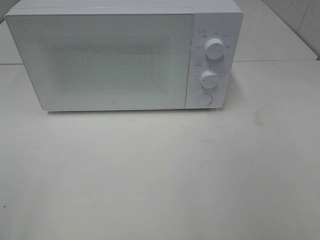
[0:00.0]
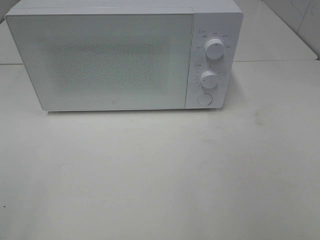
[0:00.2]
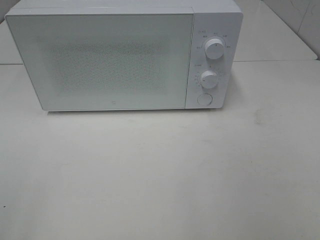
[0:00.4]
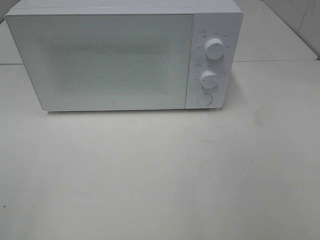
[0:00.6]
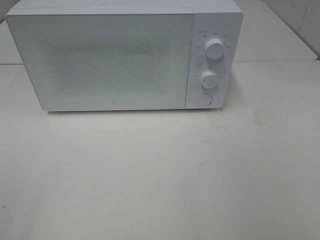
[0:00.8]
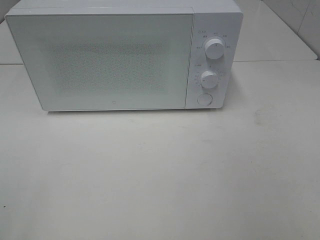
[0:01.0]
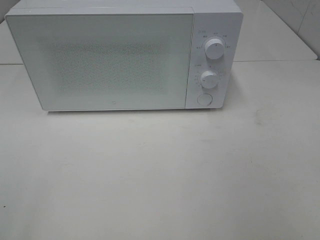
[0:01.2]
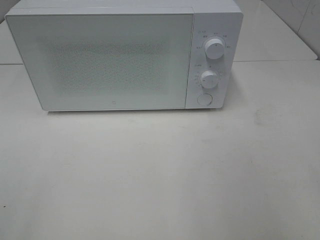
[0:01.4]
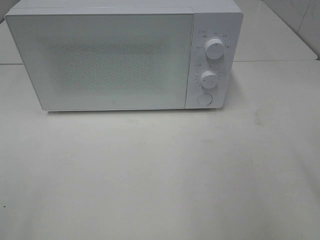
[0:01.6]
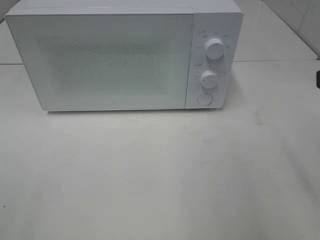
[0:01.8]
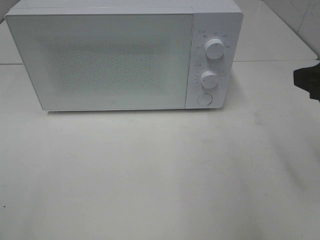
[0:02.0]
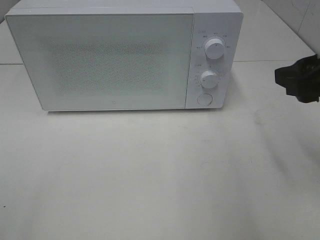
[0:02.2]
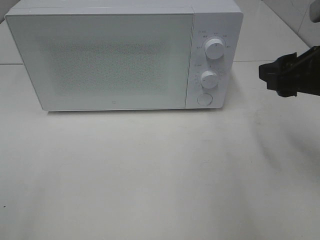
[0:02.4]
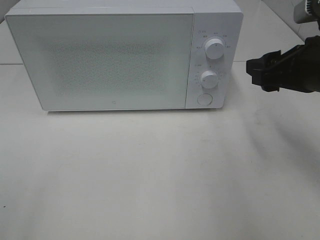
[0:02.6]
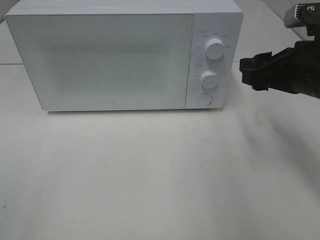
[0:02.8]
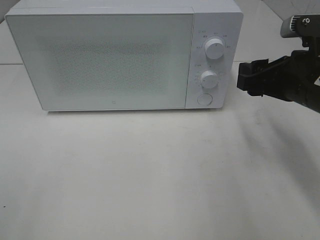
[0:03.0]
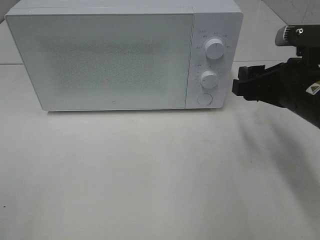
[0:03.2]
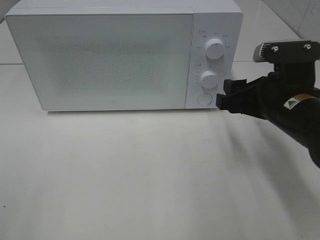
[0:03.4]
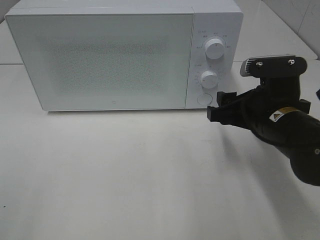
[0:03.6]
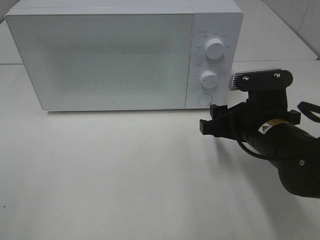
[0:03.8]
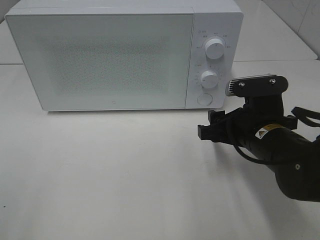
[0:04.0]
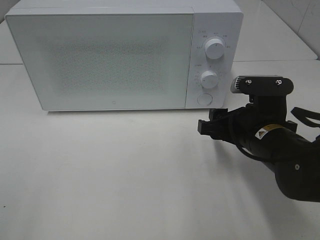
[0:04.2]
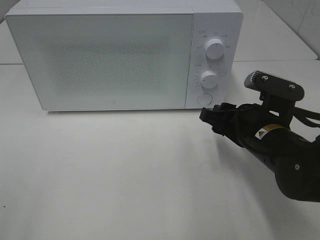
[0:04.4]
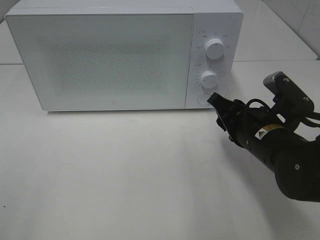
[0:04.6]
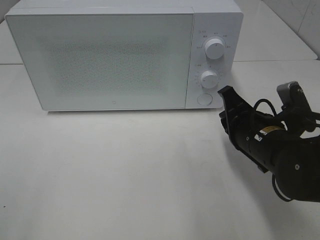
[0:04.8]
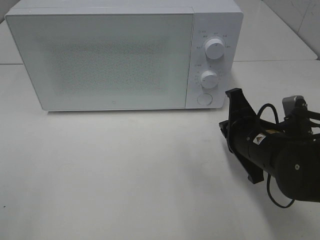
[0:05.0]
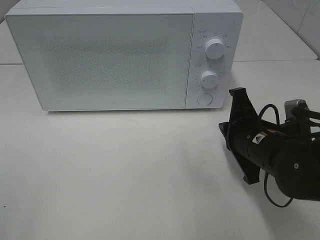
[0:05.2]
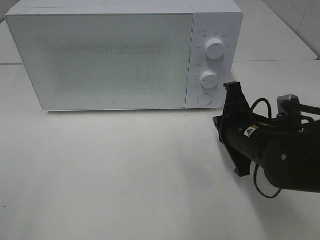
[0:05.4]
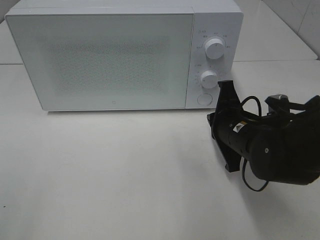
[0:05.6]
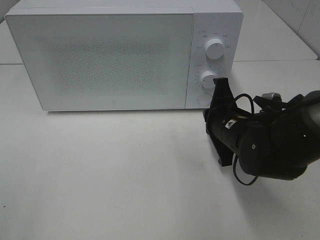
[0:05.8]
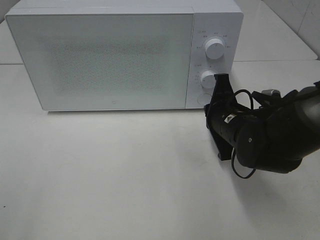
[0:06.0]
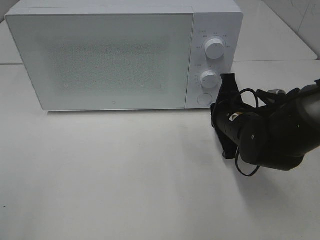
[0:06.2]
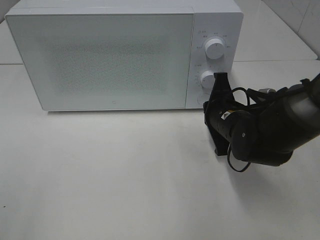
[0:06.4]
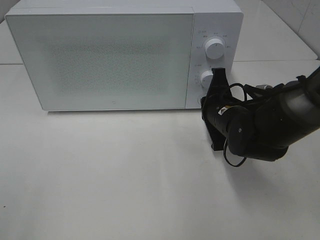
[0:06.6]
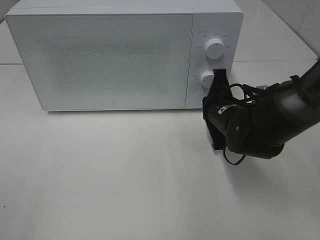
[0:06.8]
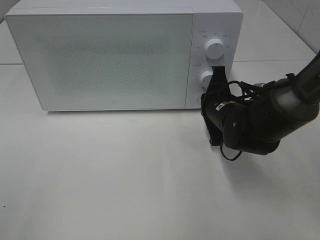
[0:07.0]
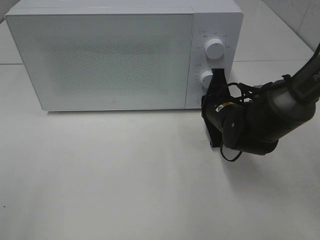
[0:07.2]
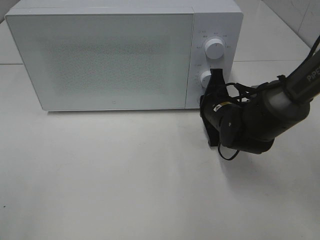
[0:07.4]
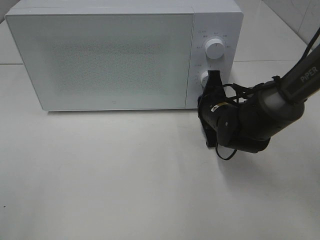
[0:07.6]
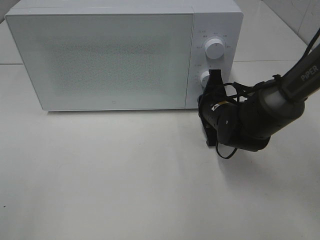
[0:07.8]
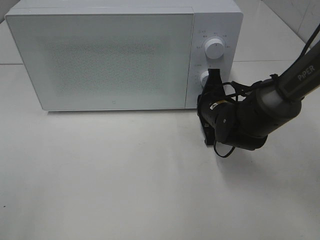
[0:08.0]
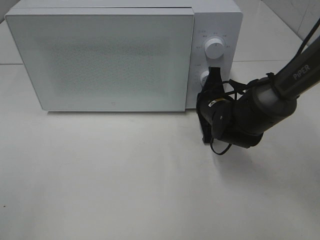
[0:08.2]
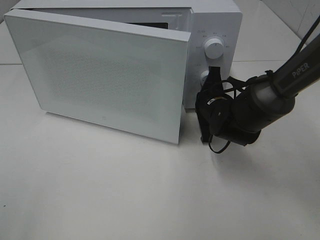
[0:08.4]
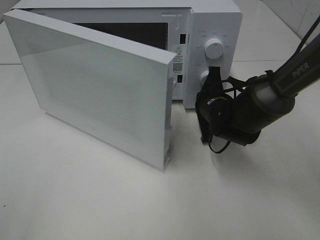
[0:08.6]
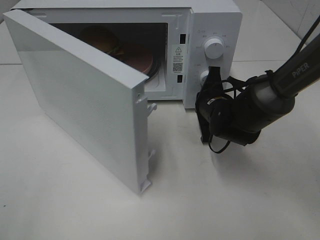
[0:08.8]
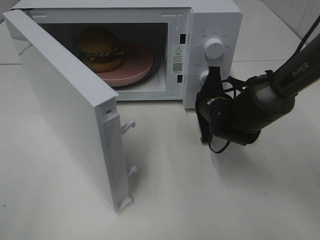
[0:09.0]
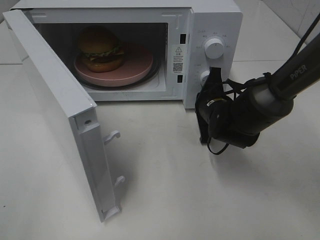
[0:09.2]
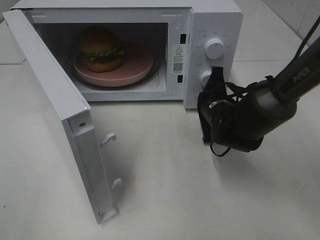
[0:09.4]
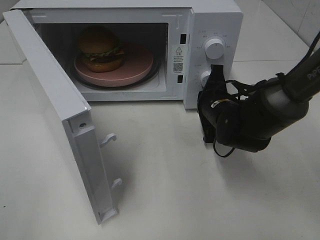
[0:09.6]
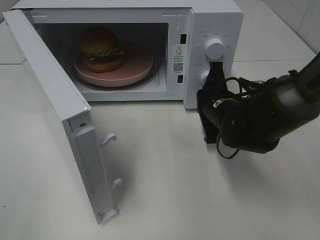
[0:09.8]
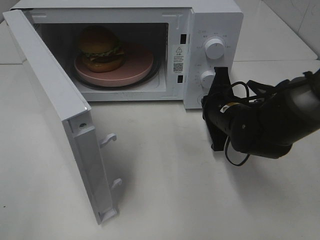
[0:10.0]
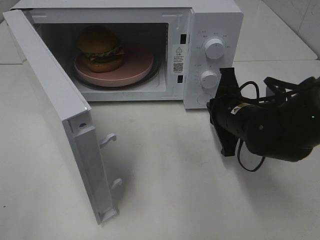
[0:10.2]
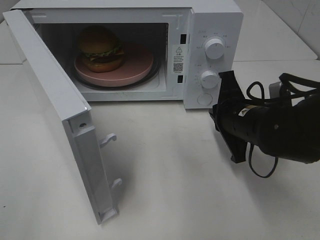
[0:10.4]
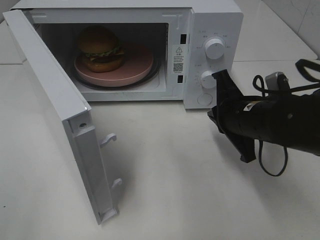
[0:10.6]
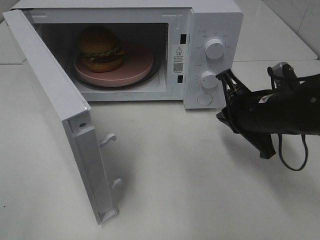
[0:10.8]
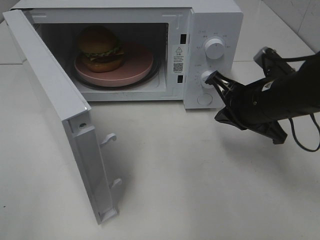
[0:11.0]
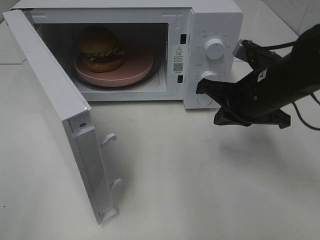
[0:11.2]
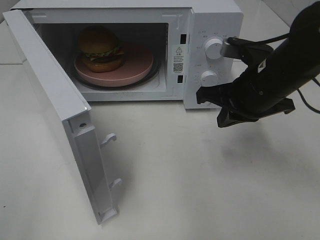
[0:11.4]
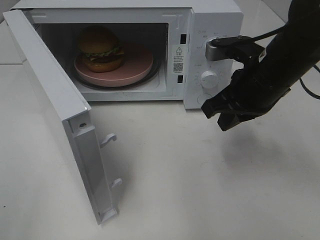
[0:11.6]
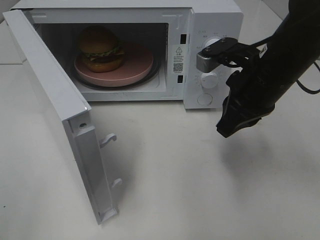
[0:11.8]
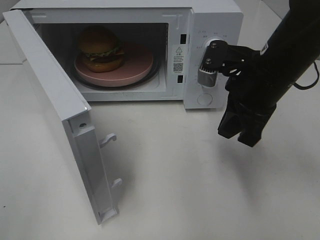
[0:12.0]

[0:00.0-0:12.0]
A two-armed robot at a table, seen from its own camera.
Task of the whole recording: Heat the burger.
Step, 0:00.0 to 0:10.0: Right hand: press the switch.
0:01.6 to 0:03.0: The right gripper heads forward and downward, covering approximately 15 cm.
0:03.0 to 0:04.4: The right gripper goes about 10 cm downward and to the left.
0:04.4 to 0:06.0: The right gripper shifts about 5 cm forward, and closes its fingers.
0:06.0 to 0:07.6: The right gripper shifts about 5 cm forward.
0:09.0 to 0:10.4: The right gripper is displaced backward by about 10 cm.
0:10.4 to 0:12.0: The right gripper goes roughly 10 cm upward.

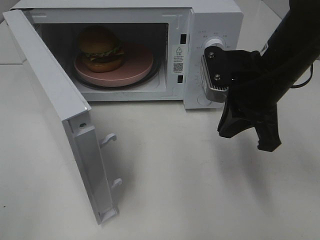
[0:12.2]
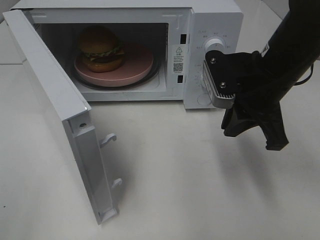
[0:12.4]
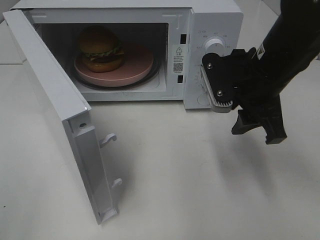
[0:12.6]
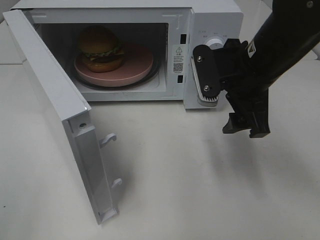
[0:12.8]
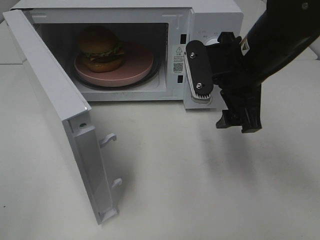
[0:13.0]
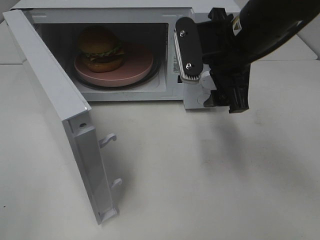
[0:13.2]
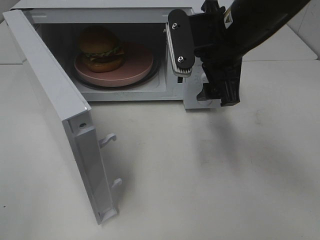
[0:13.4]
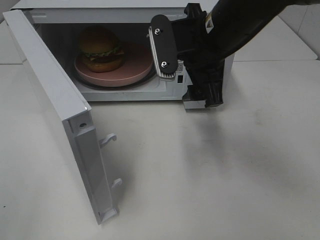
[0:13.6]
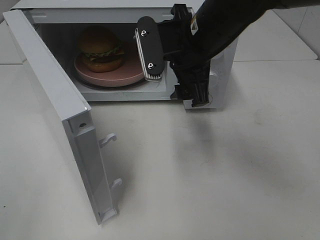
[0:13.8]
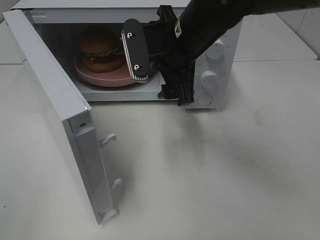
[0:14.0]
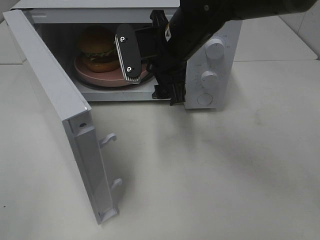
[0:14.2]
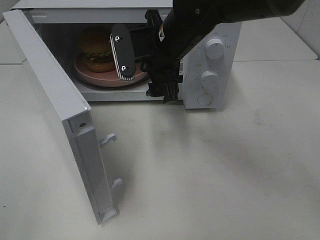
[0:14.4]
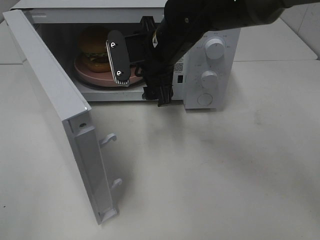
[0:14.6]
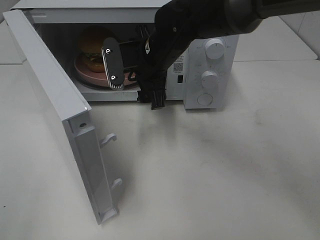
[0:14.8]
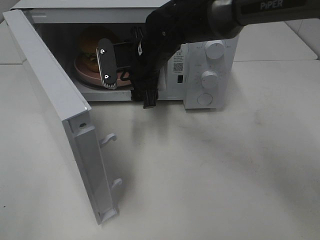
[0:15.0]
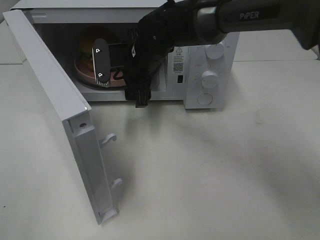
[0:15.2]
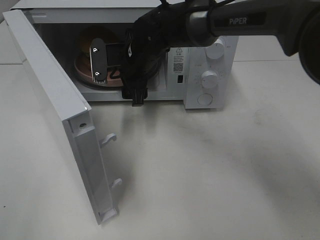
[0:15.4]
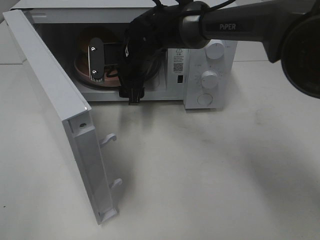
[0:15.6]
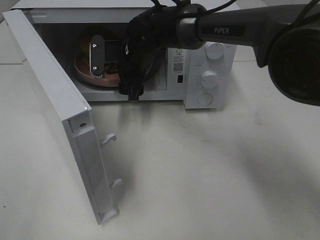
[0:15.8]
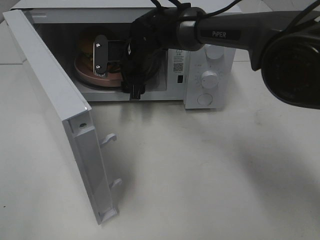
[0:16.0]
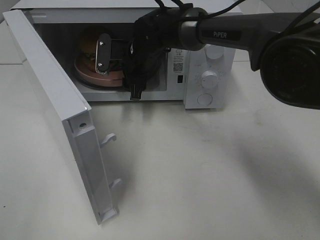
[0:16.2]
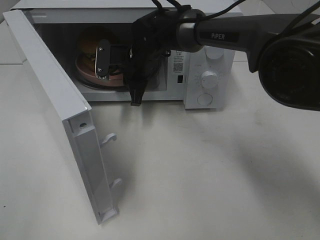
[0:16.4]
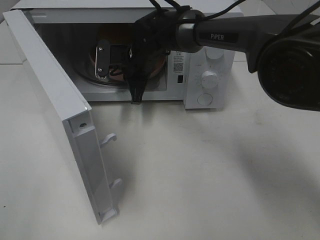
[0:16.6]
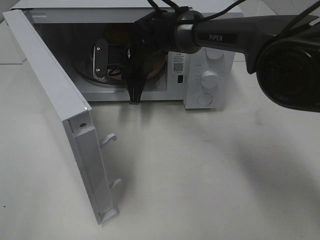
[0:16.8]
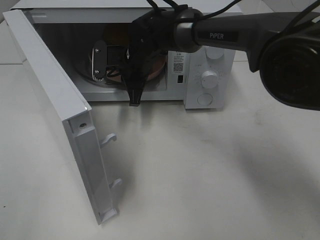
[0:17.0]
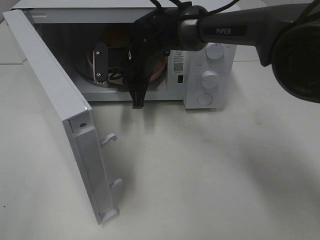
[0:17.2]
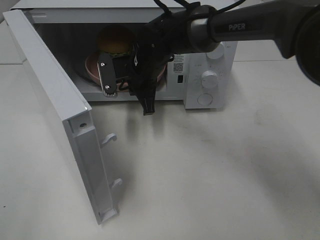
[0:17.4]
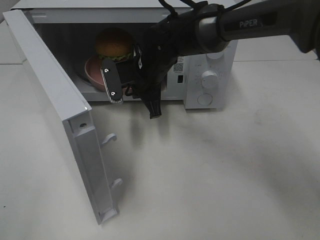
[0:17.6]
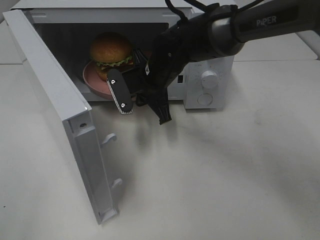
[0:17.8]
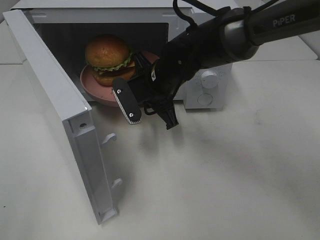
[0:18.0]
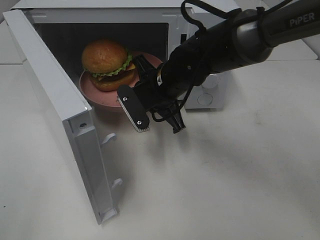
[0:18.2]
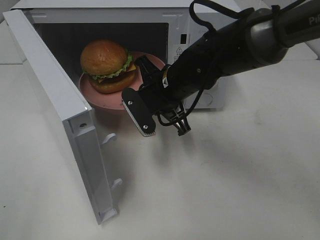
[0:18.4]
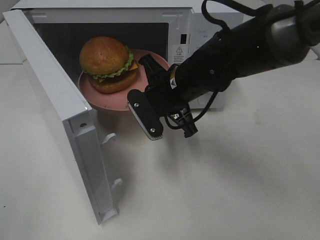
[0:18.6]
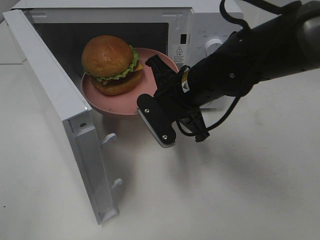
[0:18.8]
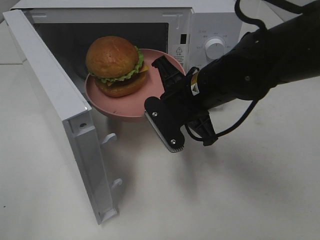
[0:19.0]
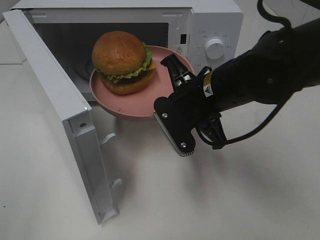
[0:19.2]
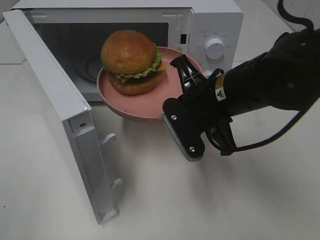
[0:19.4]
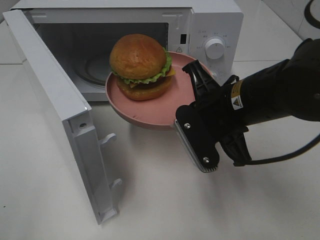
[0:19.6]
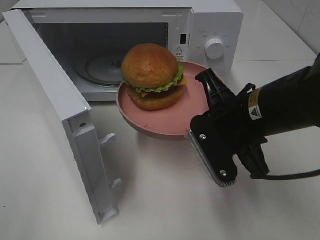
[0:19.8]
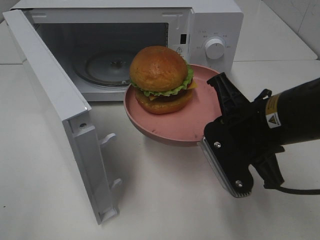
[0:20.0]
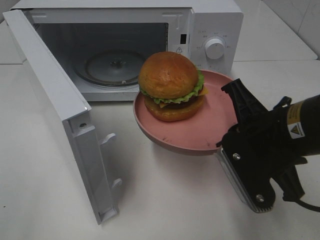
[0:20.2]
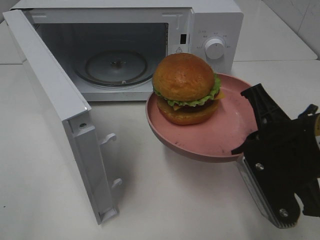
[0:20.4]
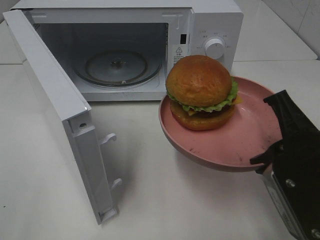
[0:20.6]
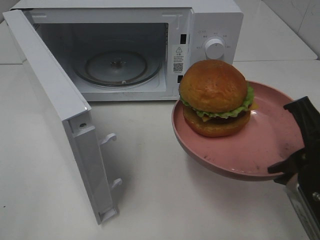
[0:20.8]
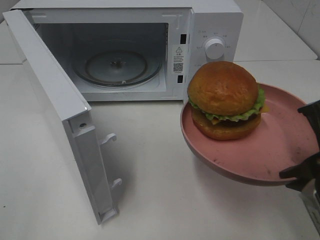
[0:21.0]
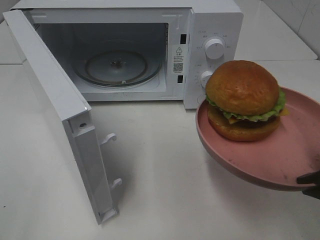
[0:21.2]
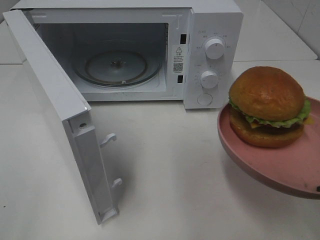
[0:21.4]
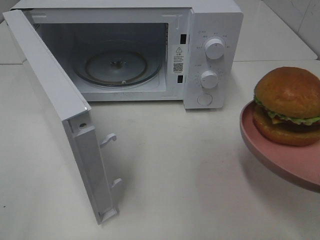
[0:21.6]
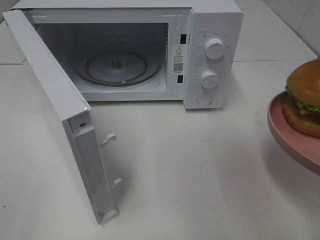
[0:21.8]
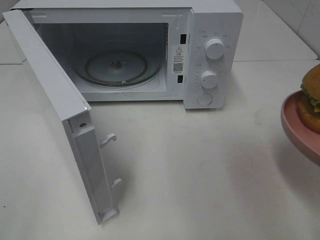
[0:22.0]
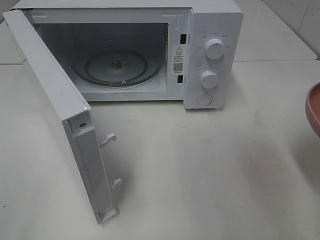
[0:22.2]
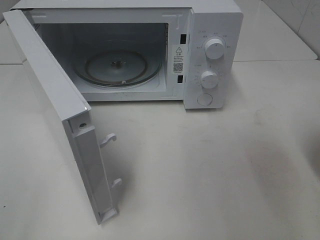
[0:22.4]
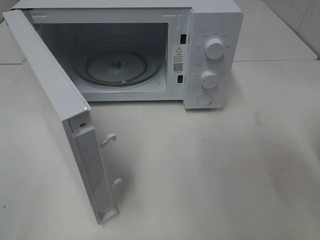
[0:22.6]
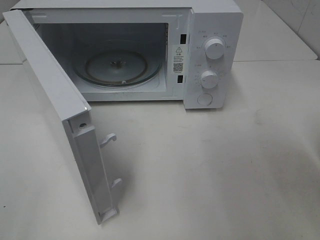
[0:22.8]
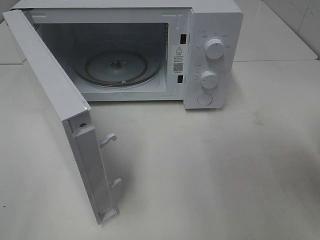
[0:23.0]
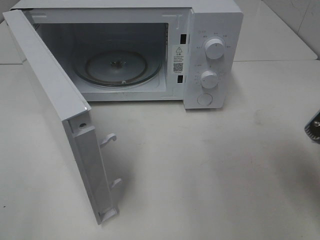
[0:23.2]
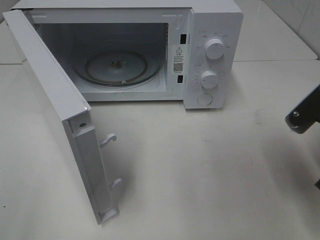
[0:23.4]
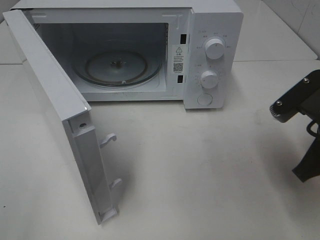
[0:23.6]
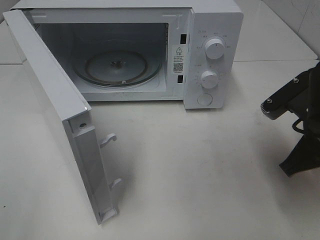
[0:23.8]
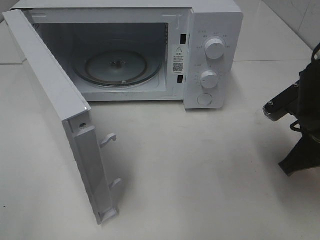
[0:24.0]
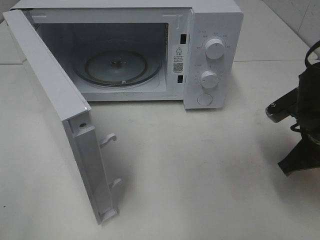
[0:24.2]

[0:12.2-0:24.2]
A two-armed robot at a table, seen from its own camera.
Task of the whole recording: Heat the burger.
Step, 0:12.2 to 0:16.4: Right hand: grab the plate with the hamburger.
0:12.2 to 0:13.8: The right gripper shifts roughly 10 cm to the left, and opens.
0:13.8 to 0:15.2: The right gripper travels forward, to the left and downward by about 15 cm.
0:15.2 to 0:16.6: The right gripper ends up about 5 cm from where it was, and closes.
0:16.6 to 0:18.2: The right gripper travels backward and to the right by some 10 cm.
0:18.2 to 0:19.8: The right gripper heads backward and to the right, covering approximately 15 cm.
0:19.8 to 0:21.2: The right gripper goes about 15 cm backward and to the right.
0:22.6 to 0:24.2: The right gripper goes some 15 cm forward and downward.
